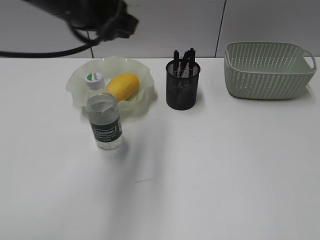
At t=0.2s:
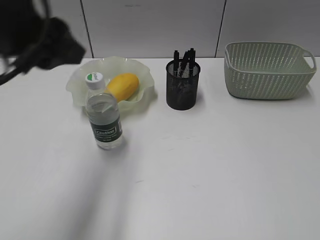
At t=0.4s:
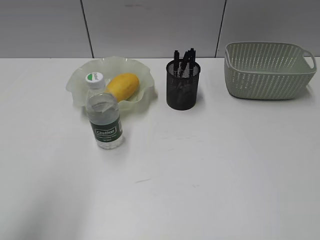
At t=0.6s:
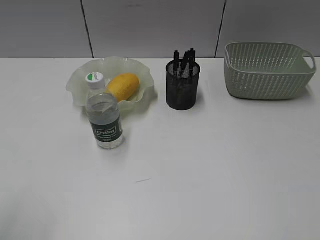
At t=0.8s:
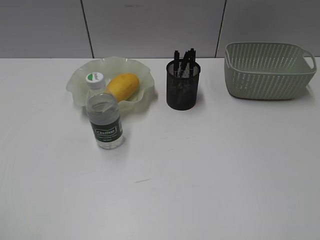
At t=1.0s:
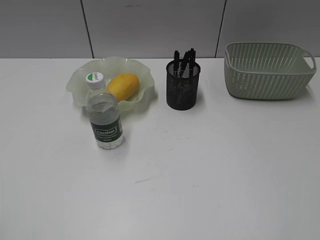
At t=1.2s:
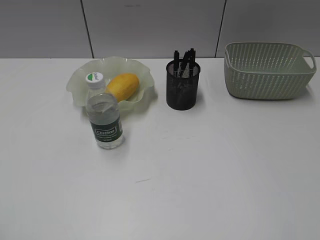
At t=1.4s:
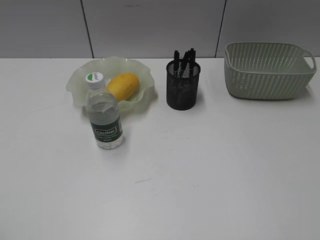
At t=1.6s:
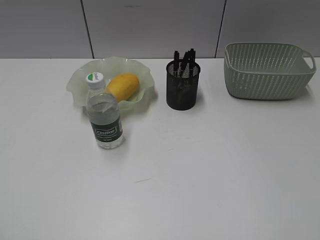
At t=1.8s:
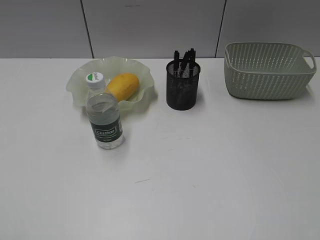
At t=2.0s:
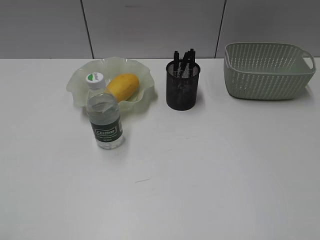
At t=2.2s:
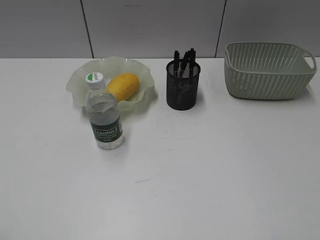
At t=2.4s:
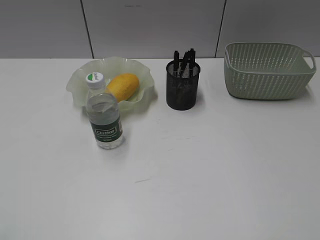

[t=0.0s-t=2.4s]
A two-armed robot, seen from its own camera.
t=0.0s to t=1.2s: The right gripper opens up. Meanwhile the left gripper is displaced backward and to the left by about 35 cm.
